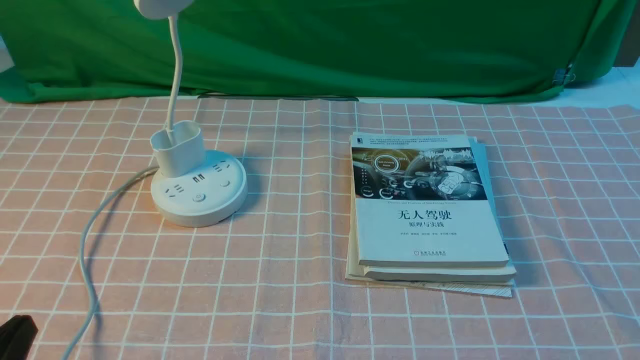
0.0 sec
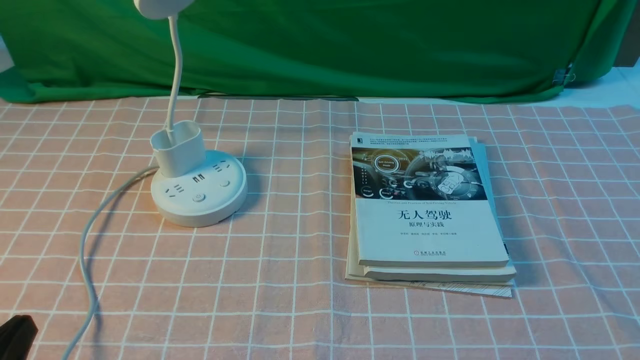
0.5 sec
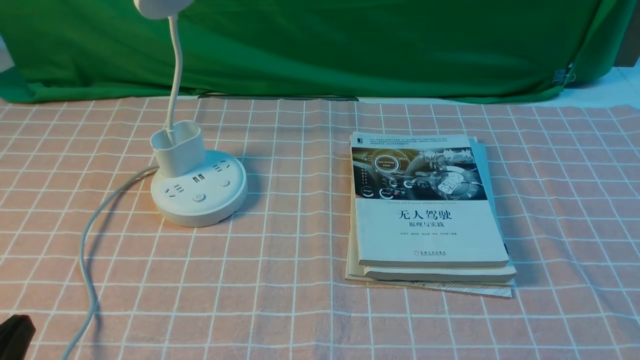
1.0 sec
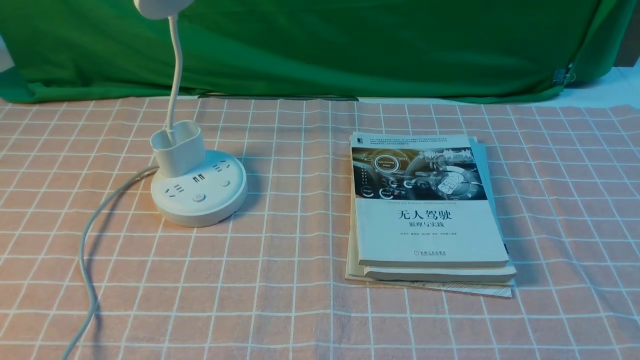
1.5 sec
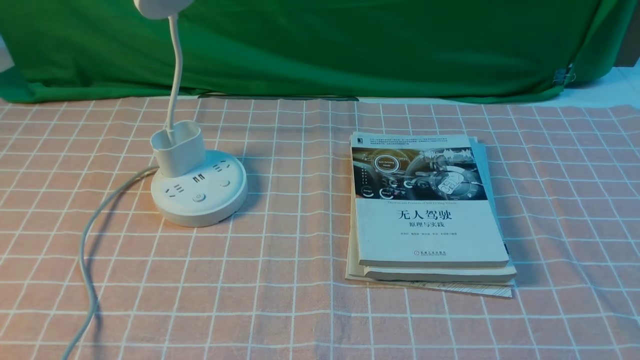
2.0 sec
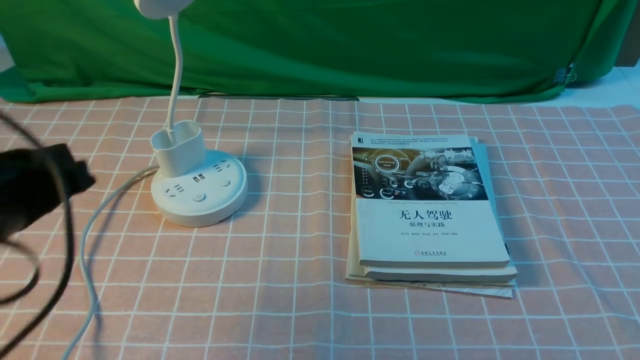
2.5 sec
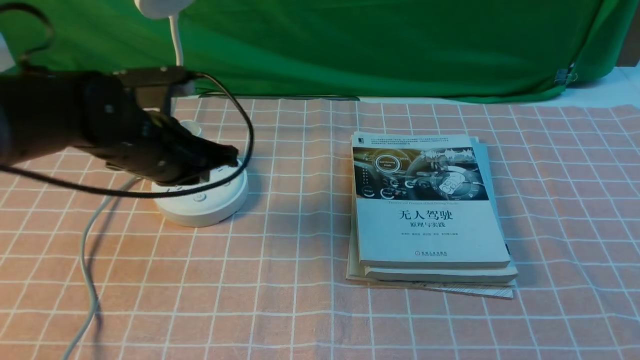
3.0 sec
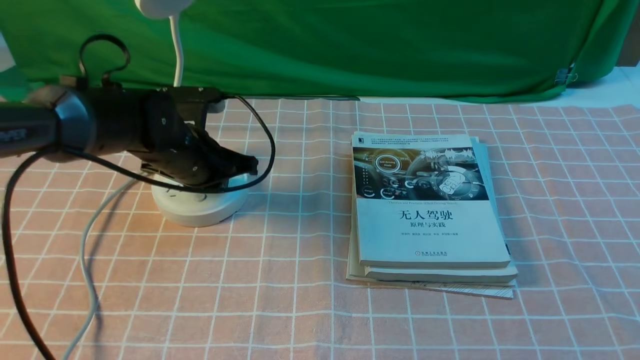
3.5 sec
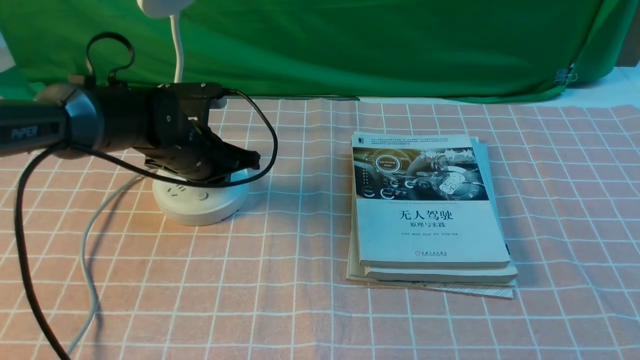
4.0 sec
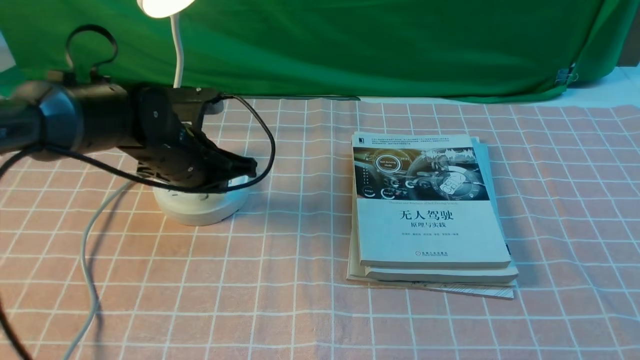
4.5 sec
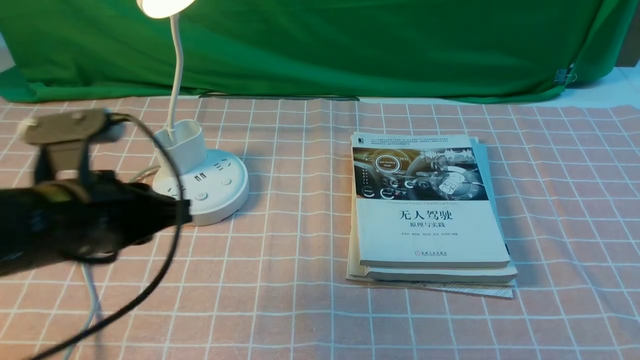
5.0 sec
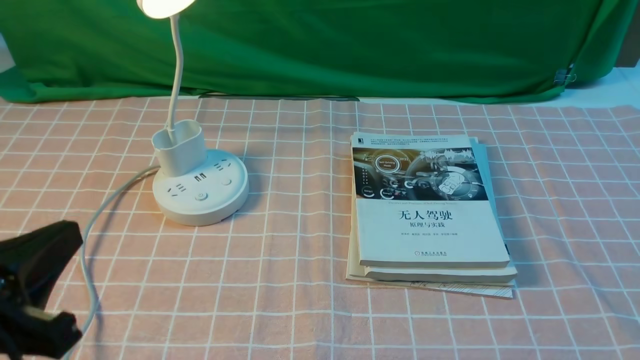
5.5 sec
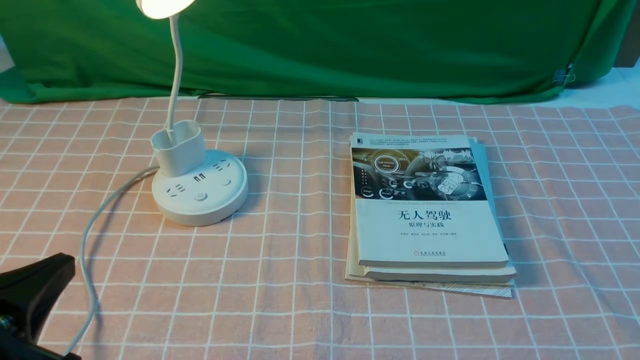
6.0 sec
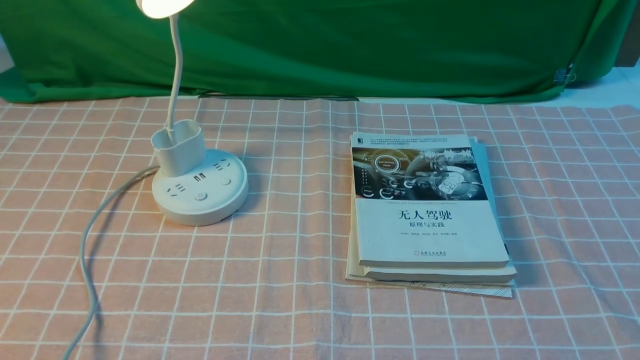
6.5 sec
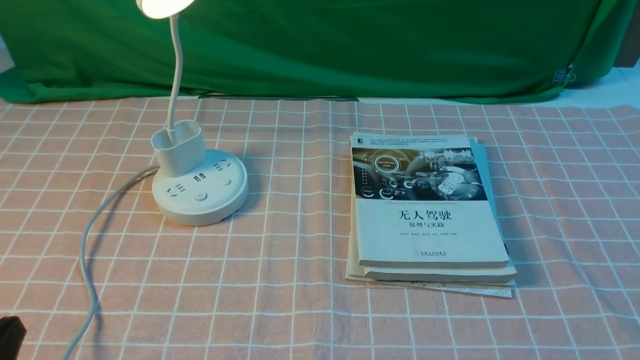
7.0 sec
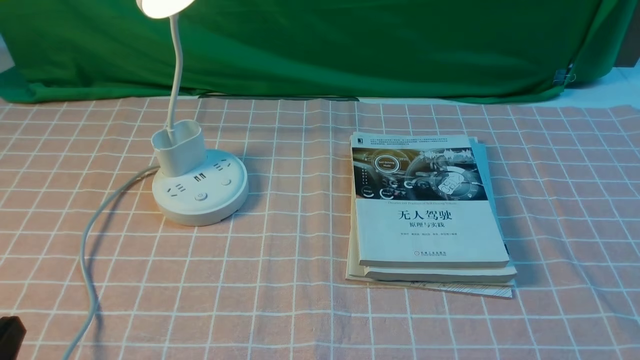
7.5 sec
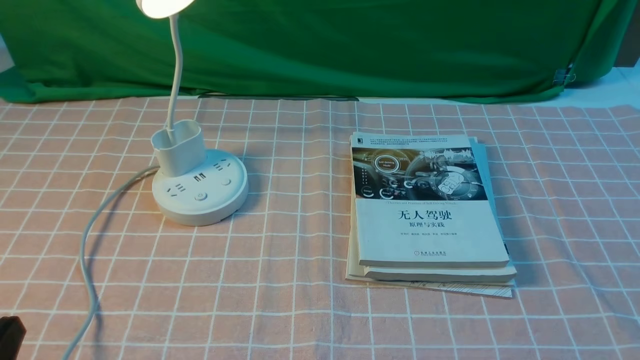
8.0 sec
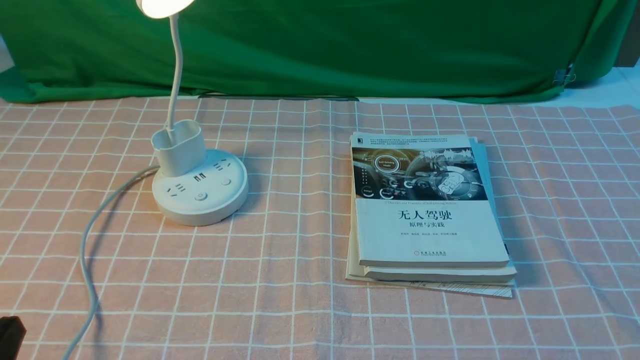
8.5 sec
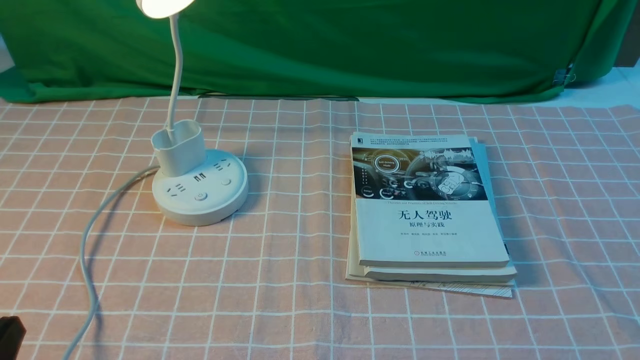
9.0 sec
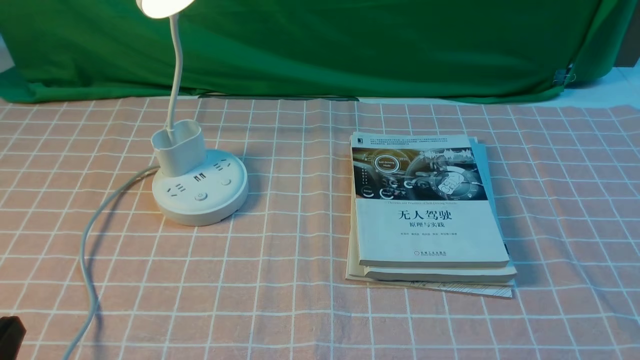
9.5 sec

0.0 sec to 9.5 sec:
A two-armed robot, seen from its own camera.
Step, 0.0 sec to 4.5 sec: use the left arm to press the button switch on the lamp holder.
2.0 sec to 4.0 sec: The left gripper shifts approximately 35 cm forward.
4.0 sec to 5.5 sec: The left gripper shifts some 30 cm backward.
5.5 sec to 7.5 sec: The left gripper heads downward, covering some 10 cm, and opens.
7.5 sec to 9.5 sec: The two grippers keep their place.
